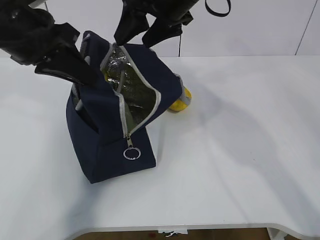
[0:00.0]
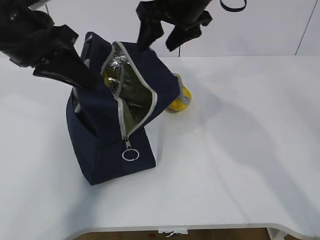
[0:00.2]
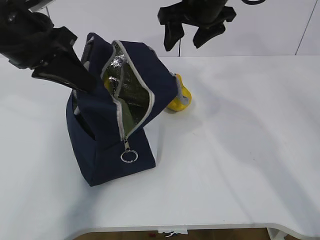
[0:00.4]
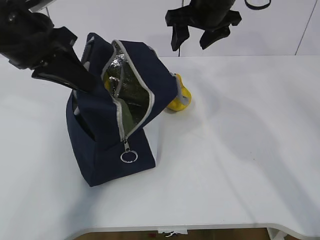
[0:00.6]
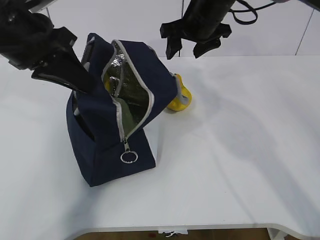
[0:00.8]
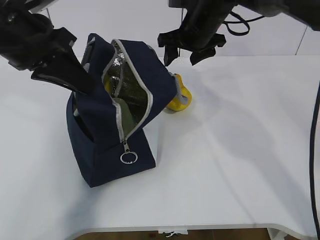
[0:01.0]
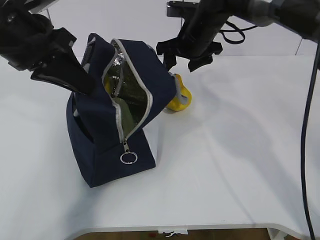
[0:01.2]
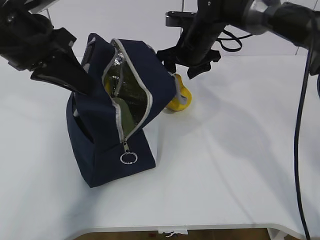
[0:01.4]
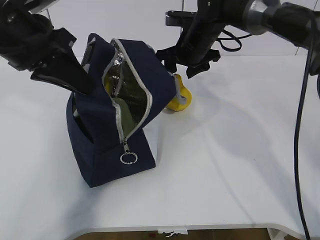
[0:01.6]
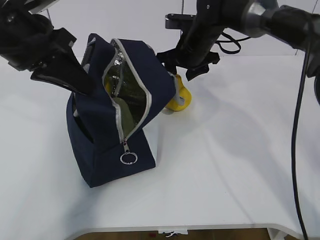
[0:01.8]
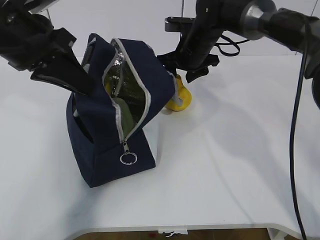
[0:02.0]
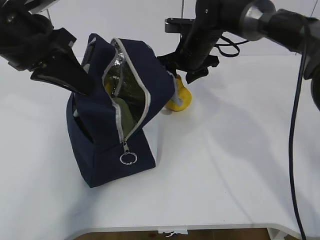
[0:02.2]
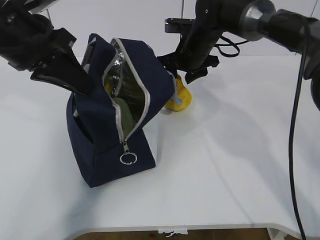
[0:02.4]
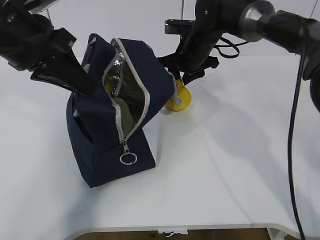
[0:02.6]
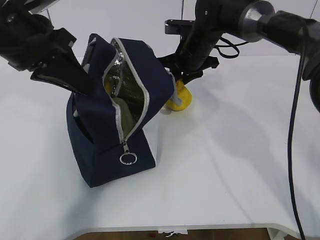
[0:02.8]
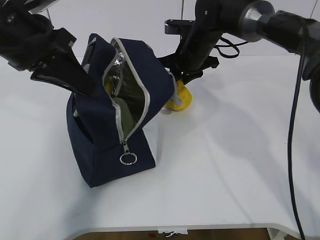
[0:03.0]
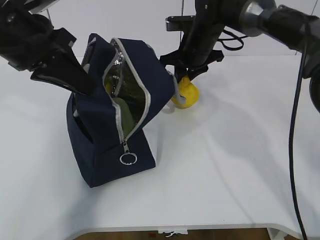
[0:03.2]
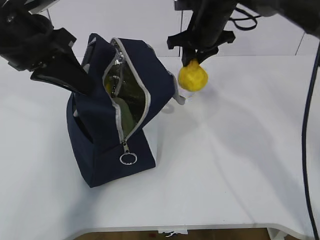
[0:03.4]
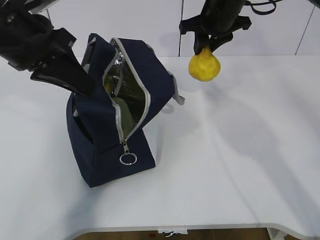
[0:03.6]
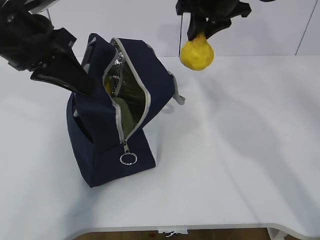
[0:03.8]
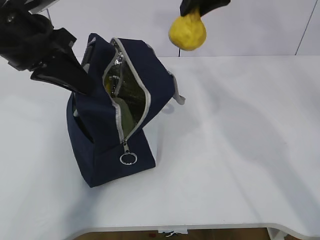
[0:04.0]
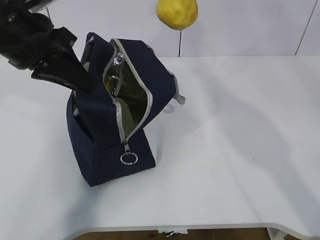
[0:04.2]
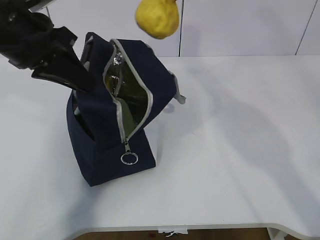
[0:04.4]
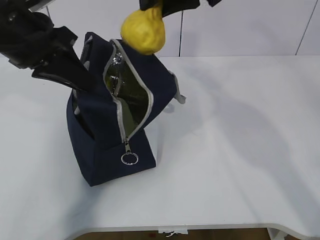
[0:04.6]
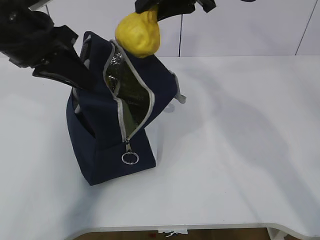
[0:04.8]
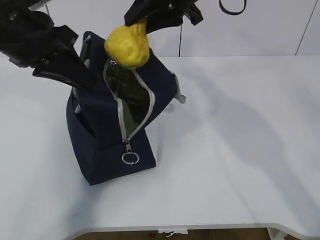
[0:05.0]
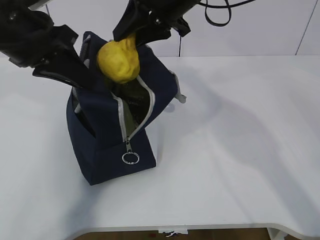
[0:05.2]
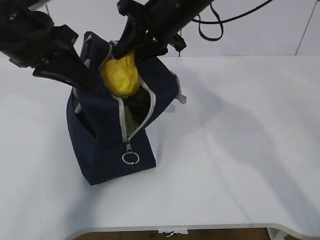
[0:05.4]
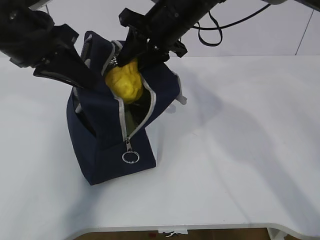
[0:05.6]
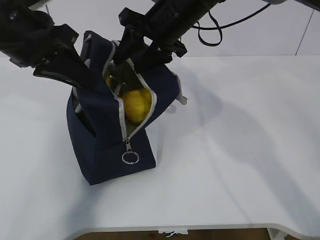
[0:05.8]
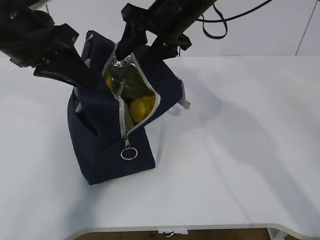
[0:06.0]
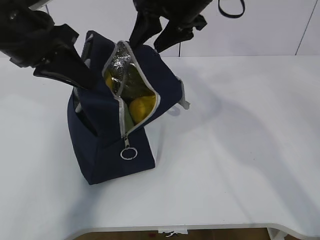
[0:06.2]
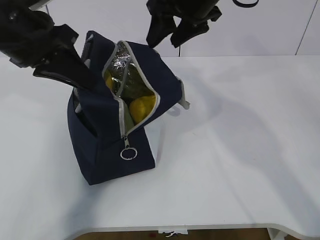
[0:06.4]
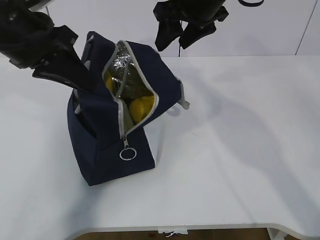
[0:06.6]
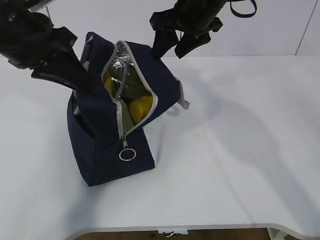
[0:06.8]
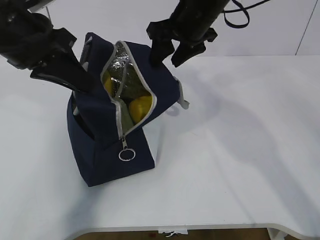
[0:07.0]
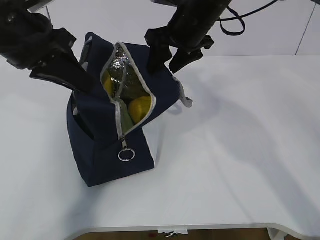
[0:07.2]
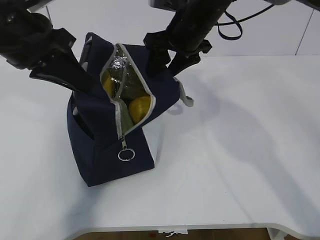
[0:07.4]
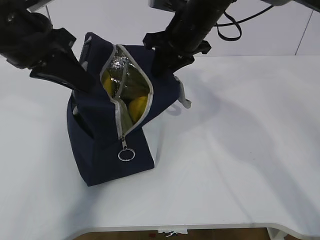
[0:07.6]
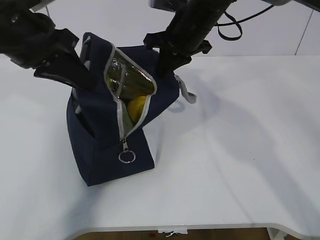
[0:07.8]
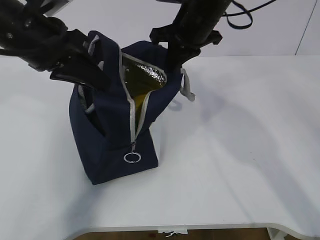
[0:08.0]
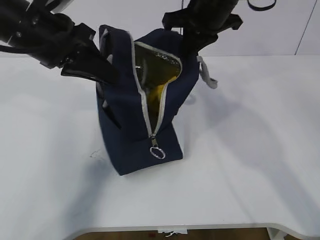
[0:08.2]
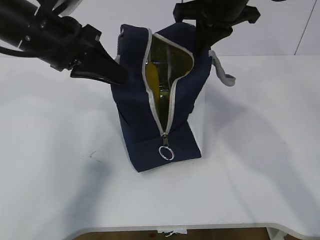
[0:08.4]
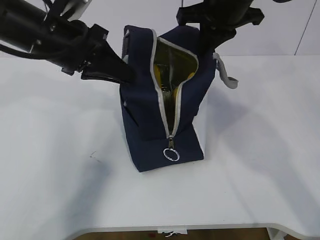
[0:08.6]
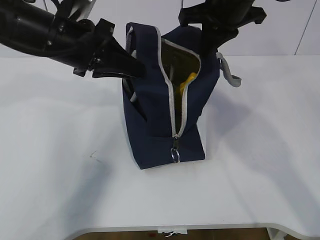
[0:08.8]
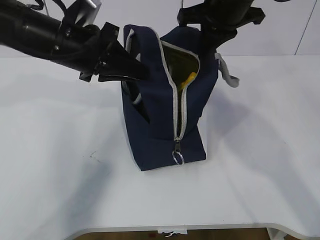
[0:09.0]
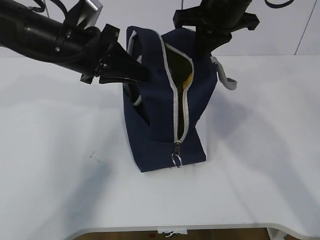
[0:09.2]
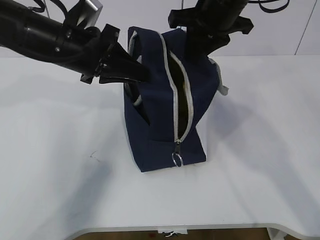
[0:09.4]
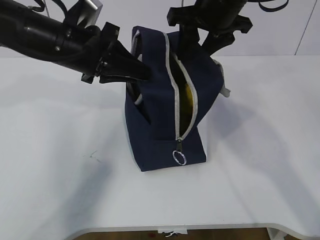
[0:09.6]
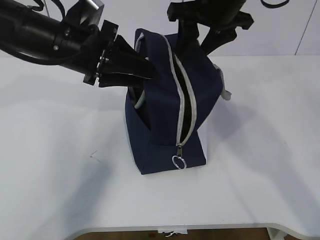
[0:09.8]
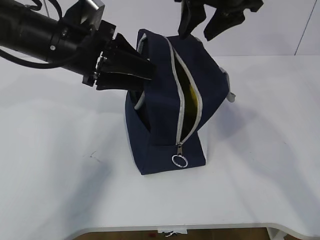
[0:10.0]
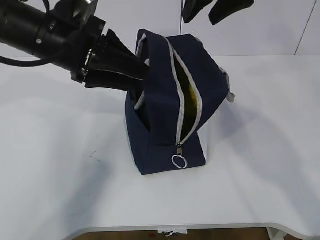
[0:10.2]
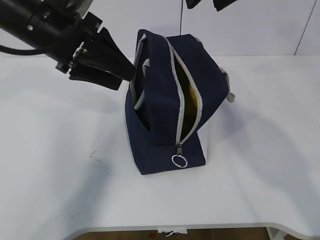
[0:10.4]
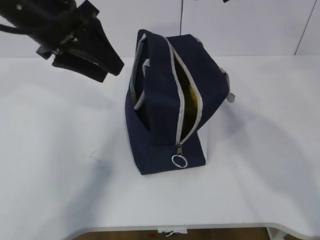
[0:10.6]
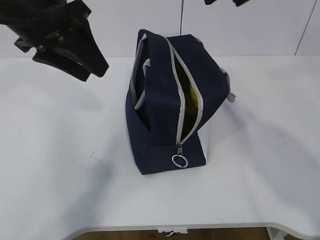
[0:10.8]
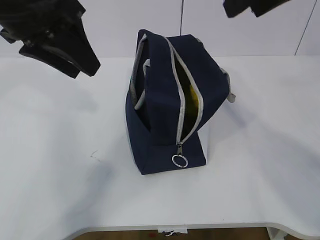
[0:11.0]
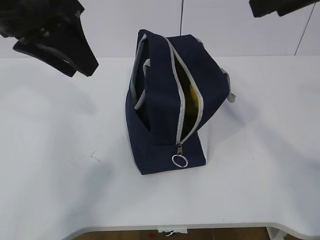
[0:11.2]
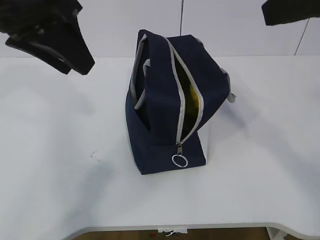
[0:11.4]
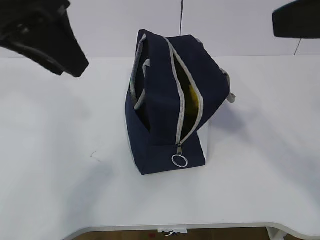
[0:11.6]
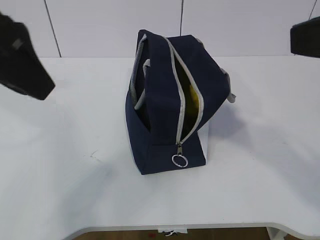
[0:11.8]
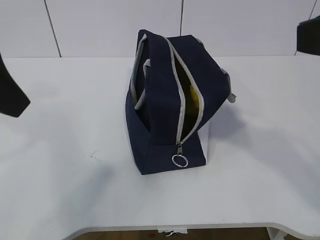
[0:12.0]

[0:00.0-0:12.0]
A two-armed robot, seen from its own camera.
Step, 0:00.4 to 0:01.6: Grab the lunch bag with your right hand.
Step, 0:02.0 to 0:03.6: Move the lunch bag to the right.
0:00.0 to 0:01.6: The right gripper goes about 15 cm downward and forward.
0:01.6 to 0:03.0: The right gripper closes up.
0:03.0 to 0:04.4: The right gripper goes some 20 cm upward and backward.
0:04.4 to 0:06.0: The right gripper heads downward and to the left, covering some 10 cm, and opens its fingers.
0:06.0 to 0:07.6: The right gripper closes.
0:07.6 to 0:09.0: The left gripper shifts by about 10 cm; the right gripper is displaced upward by roughly 5 cm, and closes up.
0:09.0 to 0:10.4: The left gripper opens, while the right gripper moves upward, roughly 10 cm, and opens.
0:10.4 to 0:12.0: The right gripper moves backward, approximately 25 cm. The left gripper moves backward and upward, roughly 15 cm.

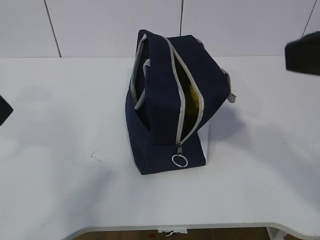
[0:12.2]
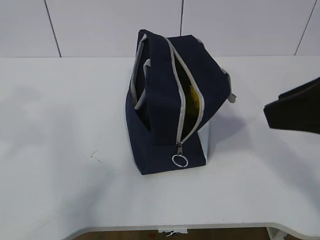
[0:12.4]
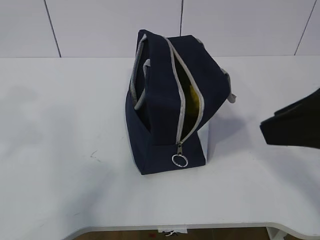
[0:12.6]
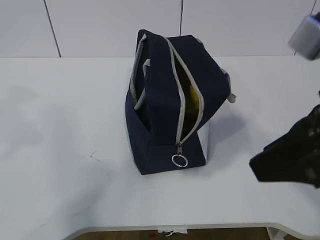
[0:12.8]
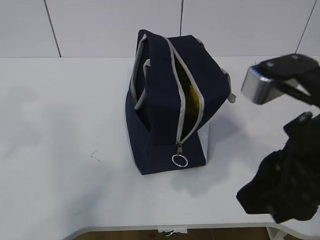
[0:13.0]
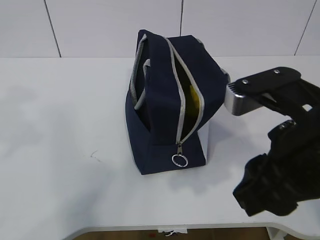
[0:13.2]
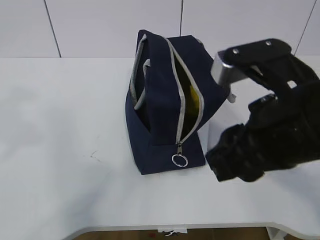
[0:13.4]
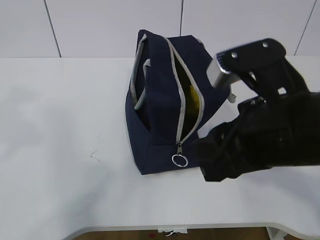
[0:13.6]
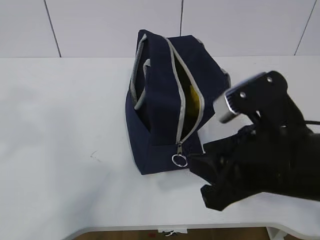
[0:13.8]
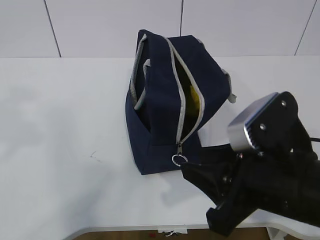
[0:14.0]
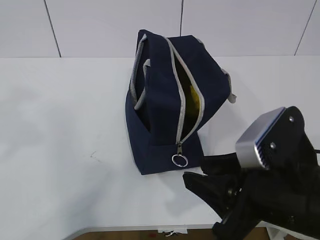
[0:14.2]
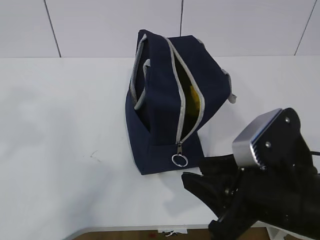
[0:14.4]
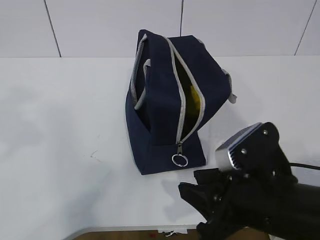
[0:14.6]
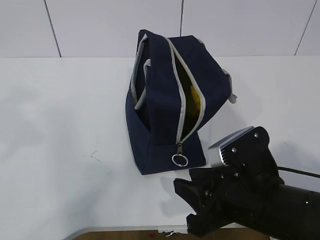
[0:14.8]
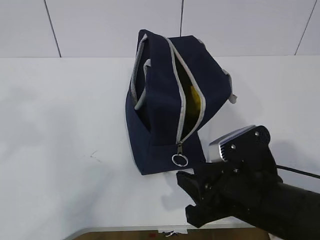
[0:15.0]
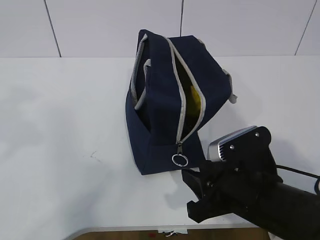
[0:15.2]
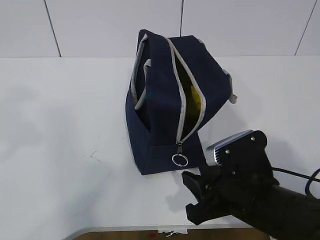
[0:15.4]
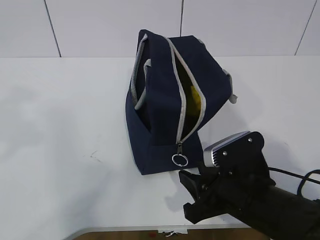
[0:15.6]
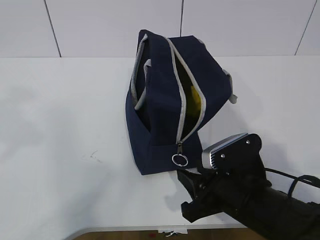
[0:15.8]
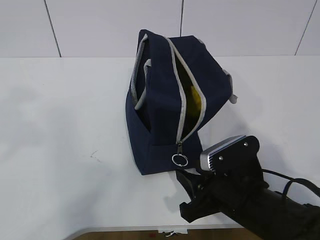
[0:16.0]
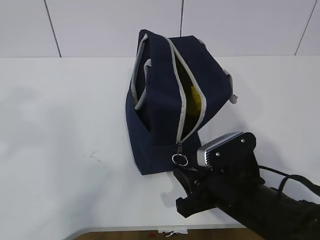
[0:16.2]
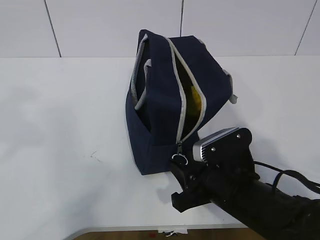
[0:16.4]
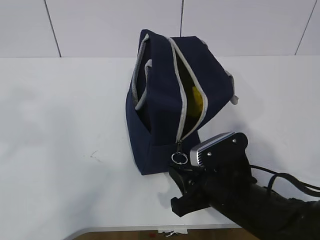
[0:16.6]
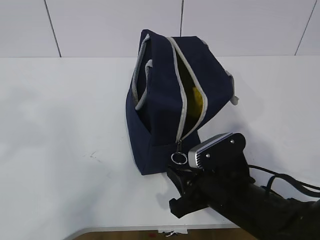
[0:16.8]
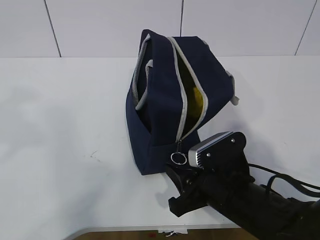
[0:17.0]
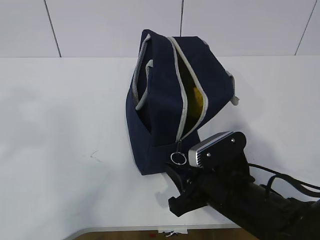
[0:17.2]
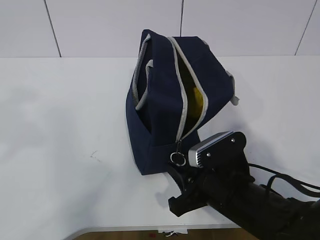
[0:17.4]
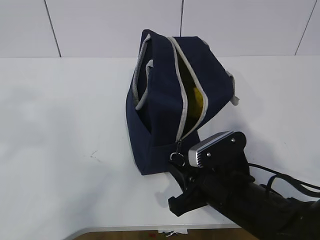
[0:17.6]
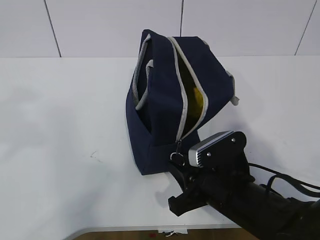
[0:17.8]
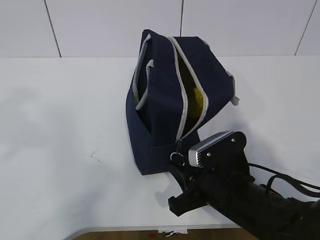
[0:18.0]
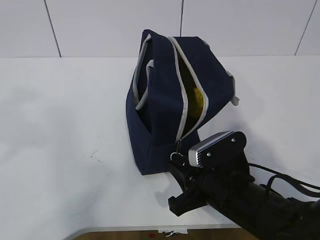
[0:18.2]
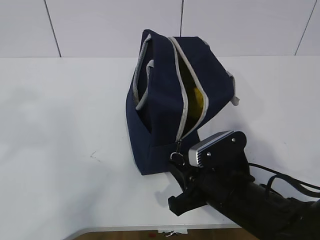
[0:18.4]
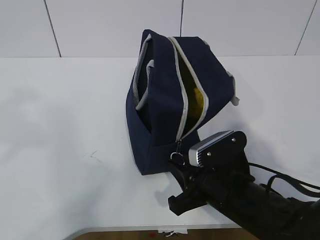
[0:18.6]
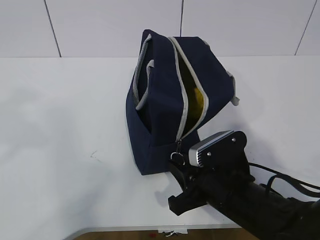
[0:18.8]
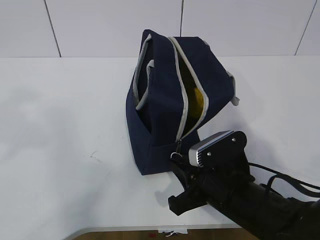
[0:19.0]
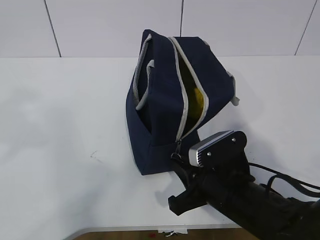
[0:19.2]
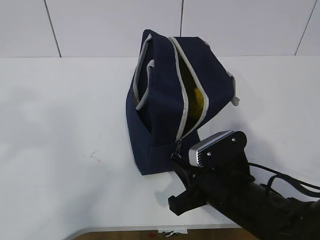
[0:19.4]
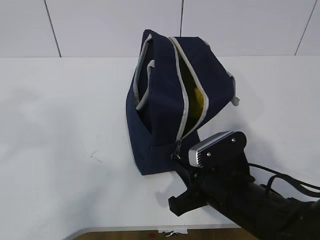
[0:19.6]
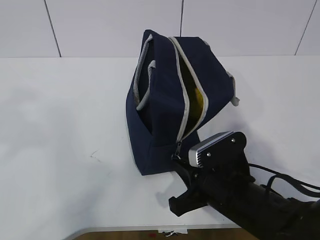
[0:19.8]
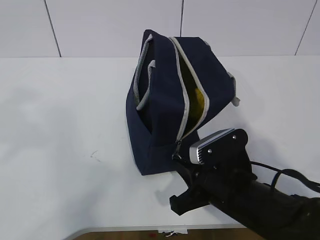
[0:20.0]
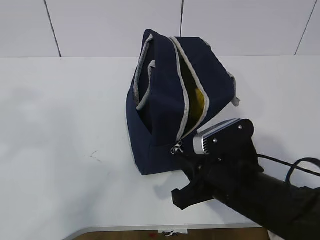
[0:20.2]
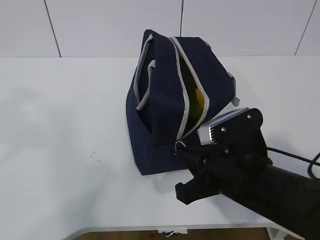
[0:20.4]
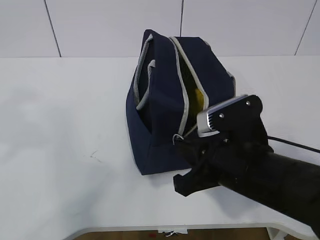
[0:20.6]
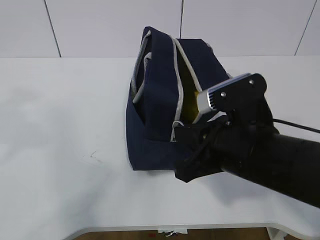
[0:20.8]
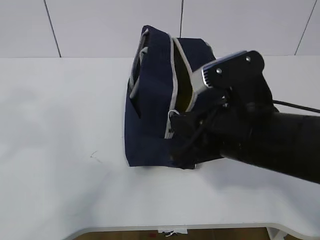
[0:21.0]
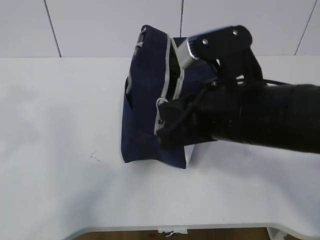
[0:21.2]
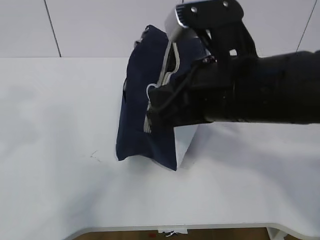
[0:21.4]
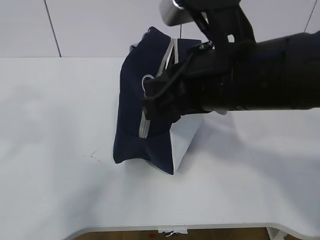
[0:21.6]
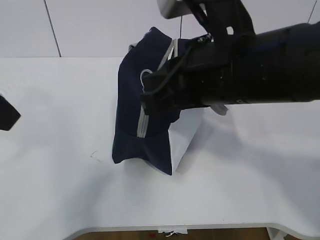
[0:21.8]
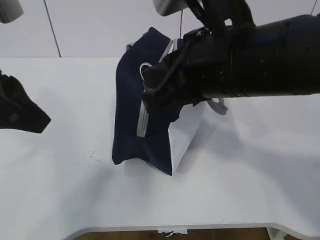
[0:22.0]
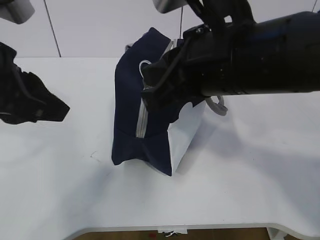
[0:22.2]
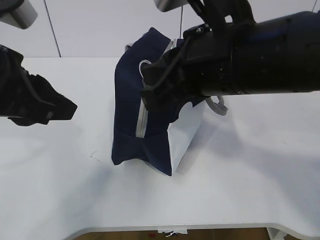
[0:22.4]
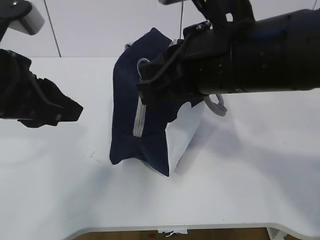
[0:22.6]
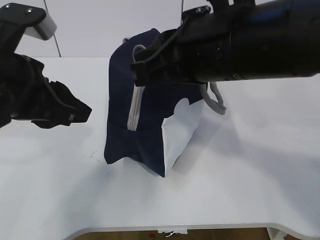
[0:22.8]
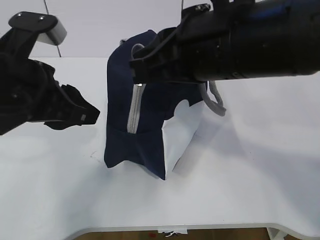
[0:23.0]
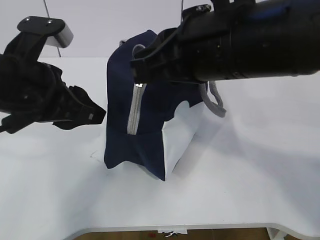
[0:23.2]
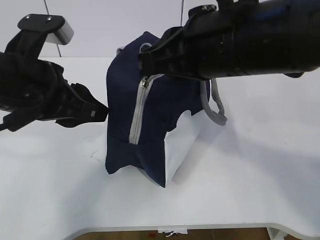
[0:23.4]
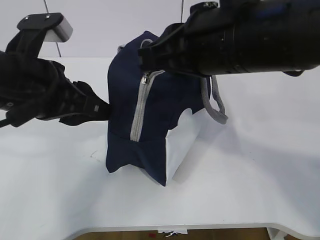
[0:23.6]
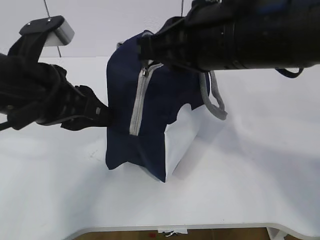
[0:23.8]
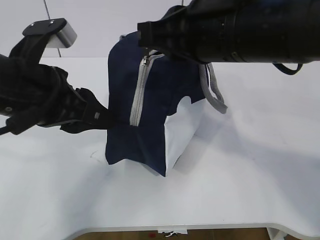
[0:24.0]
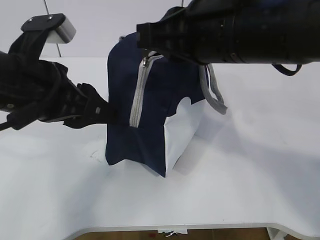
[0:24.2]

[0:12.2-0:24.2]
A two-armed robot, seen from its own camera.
Step, 0:19.0 to 0:22.8: Pull the zipper with your right hand.
Step, 0:23.0 to 0:24.0: Grab the lunch bag with your left hand.
0:12.2 to 0:13.8: The right gripper shifts about 15 cm downward and to the left.
0:13.8 to 0:15.2: The right gripper travels downward by roughly 10 cm.
0:15.2 to 0:16.6: There are only small adjustments of the grippers.
0:16.6 to 0:18.2: Neither gripper changes place.
0:18.2 to 0:19.8: The right gripper closes up.
0:19.8 to 0:21.2: The right gripper goes roughly 15 cm upward.
0:21.2 to 0:22.6: The right gripper goes about 5 cm upward, while the left gripper is displaced downward and forward by approximately 10 cm.
